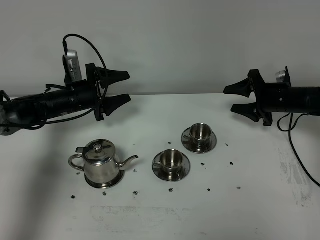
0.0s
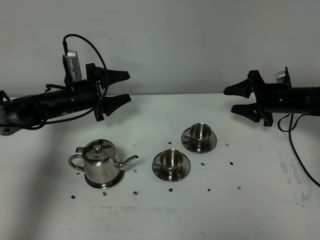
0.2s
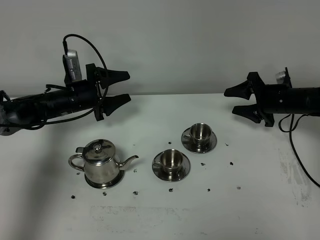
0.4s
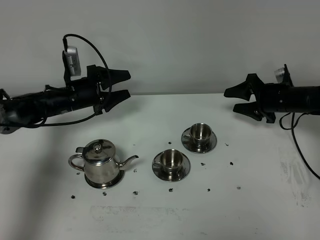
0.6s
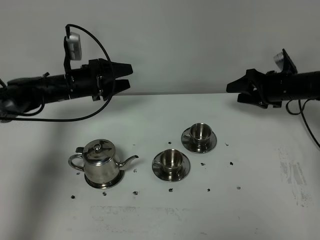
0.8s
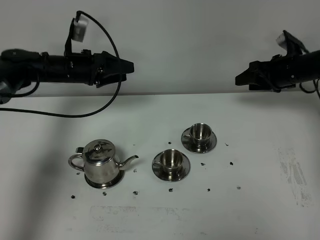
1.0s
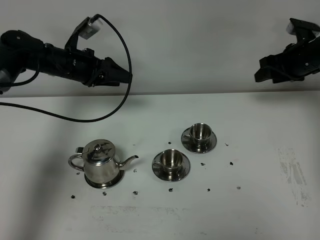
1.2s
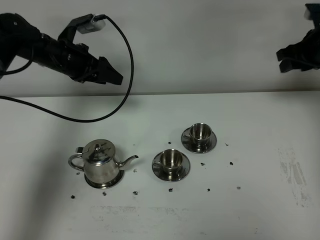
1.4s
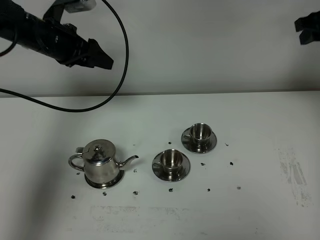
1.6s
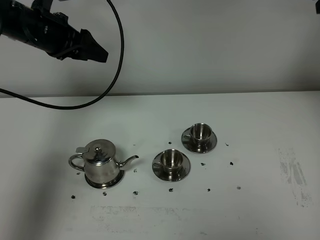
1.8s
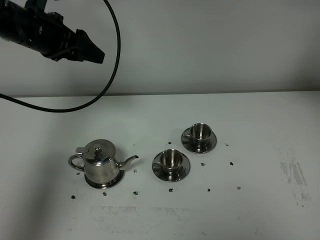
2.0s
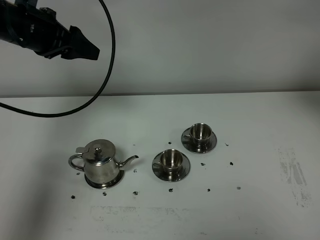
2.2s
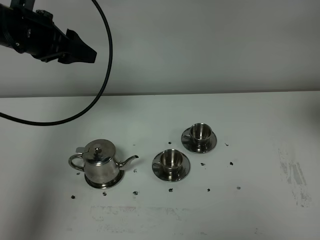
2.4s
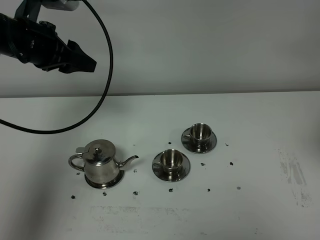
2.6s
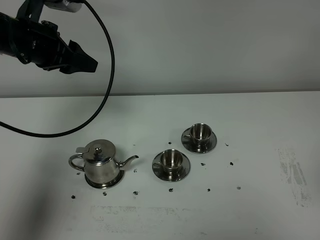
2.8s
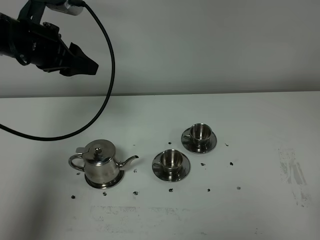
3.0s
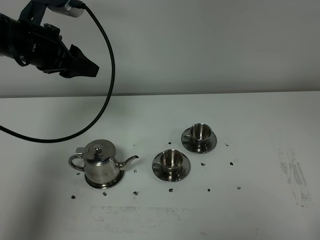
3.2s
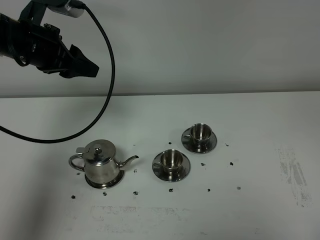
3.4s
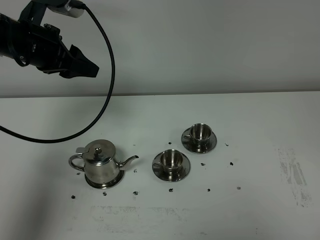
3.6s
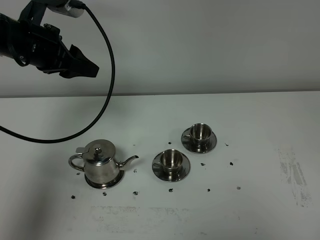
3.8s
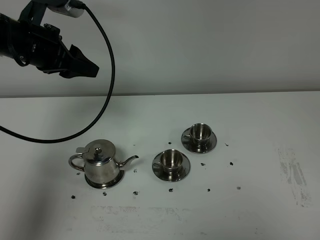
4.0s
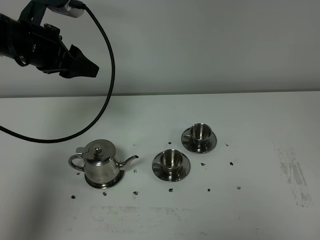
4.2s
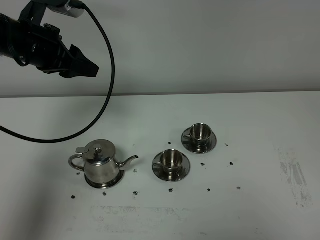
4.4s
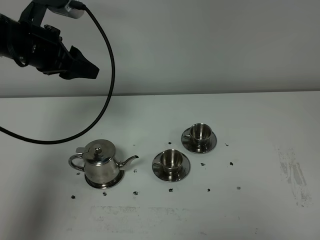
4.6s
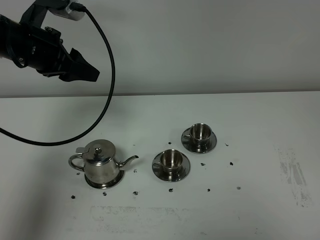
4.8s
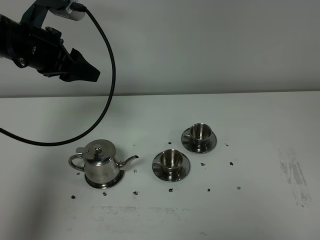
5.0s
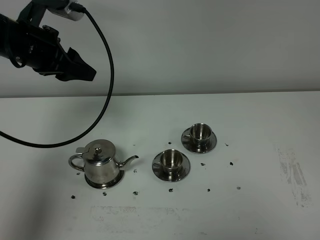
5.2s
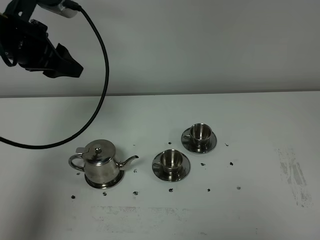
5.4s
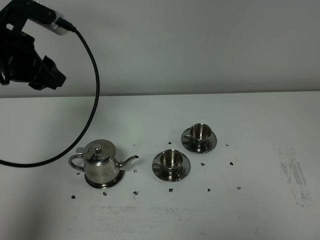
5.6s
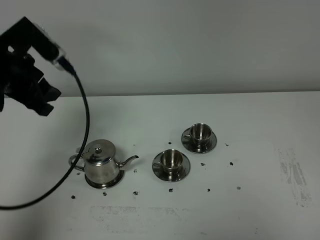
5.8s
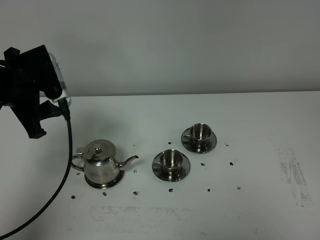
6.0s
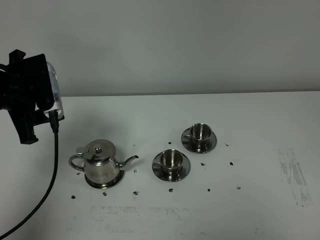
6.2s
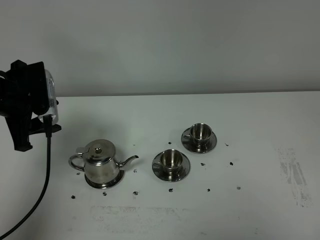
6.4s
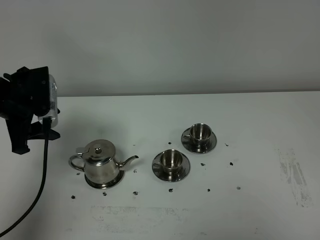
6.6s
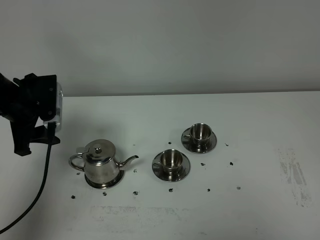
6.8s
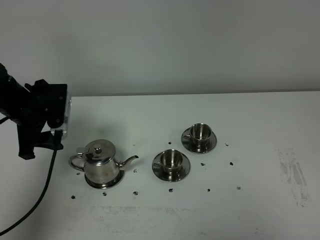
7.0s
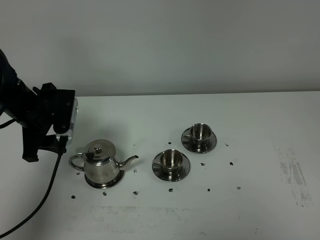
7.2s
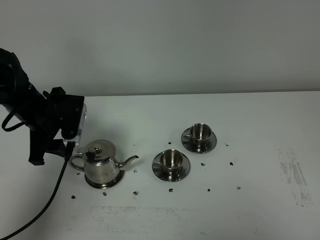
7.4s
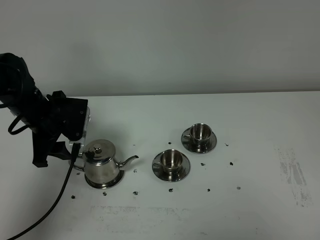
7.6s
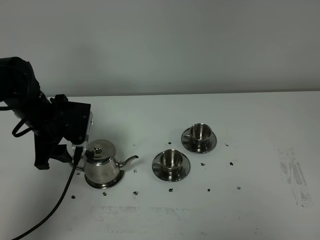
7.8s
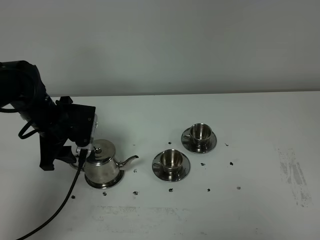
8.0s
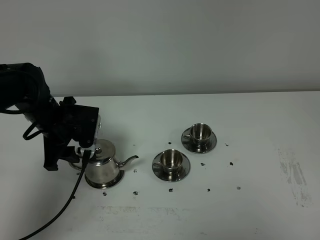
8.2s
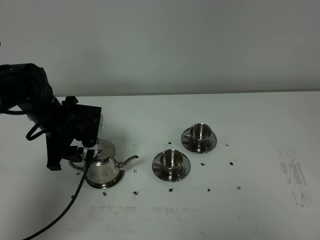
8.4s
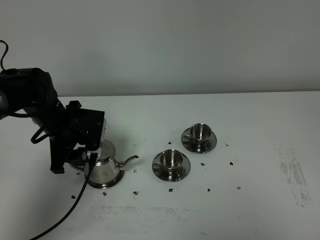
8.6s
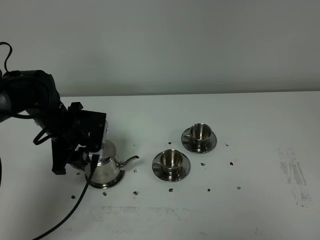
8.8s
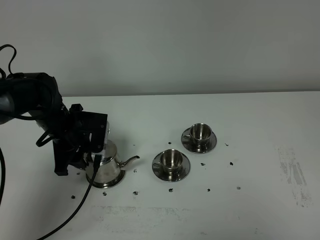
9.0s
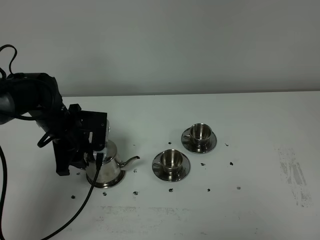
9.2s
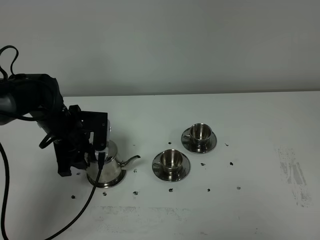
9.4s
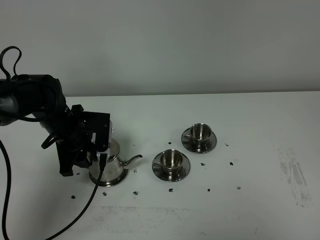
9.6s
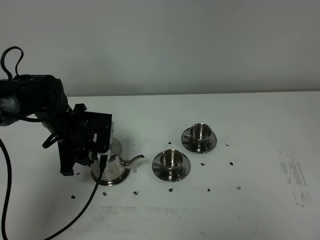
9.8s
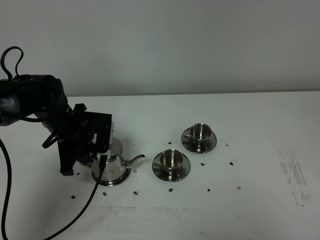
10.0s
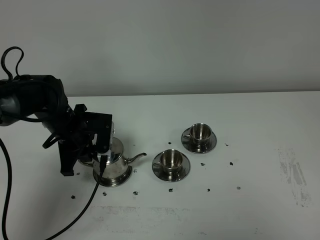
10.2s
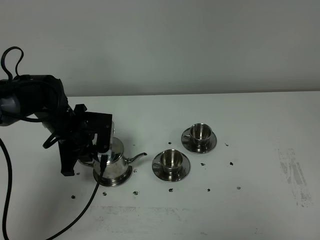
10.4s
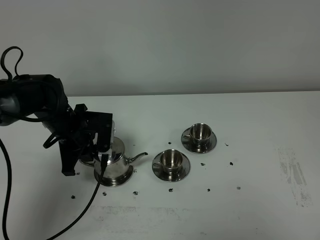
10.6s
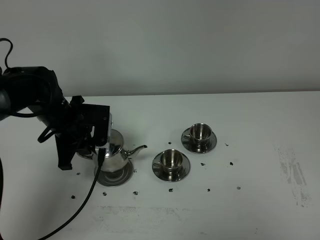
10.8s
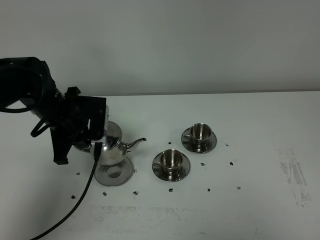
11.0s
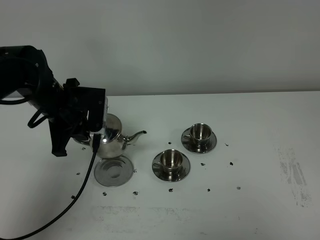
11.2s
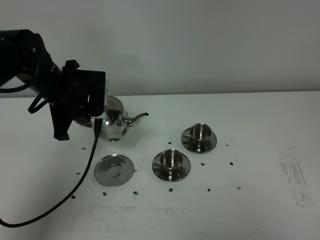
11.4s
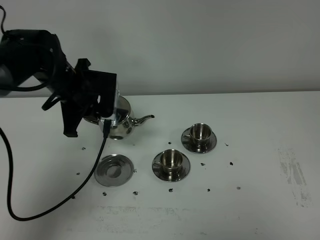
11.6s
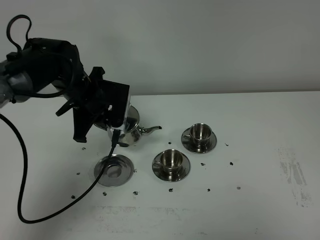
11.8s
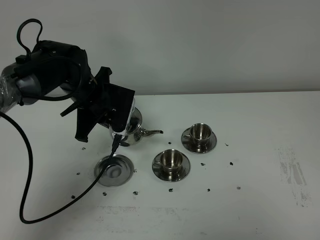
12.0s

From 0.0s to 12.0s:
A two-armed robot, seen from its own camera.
Task of the whole recording: grasp the stainless steel teapot and pour the tea into the two stainless steel teacups one by one, put the stainless steel teapot back in its original place.
Step, from 0.0s to 10.6s: Pick up the teacup with the left gripper.
From 0.0s to 1.6s: The grippers both shift upward by about 20 cm. The right gripper closes up.
From 1.6s to 3.0s: The left gripper heads backward, covering about 5 cm; the right gripper travels backward by roughly 40 cm.
From 4.4s to 6.0s: The left gripper moves backward, about 5 cm.
From 6.0s to 7.6s: The left gripper is displaced downward by about 10 cm.
From 7.6s to 9.0s: The left gripper moves roughly 5 cm.
From 9.0s to 10.4s: The left gripper closes up.
From 10.4s to 12.0s: The left gripper moves upward, approximately 5 cm.

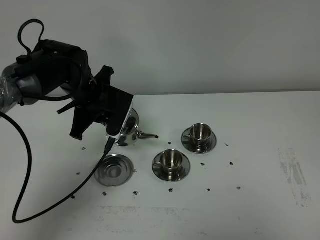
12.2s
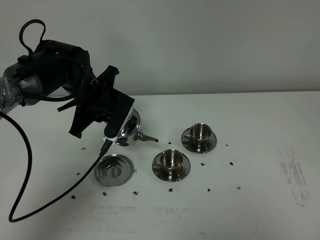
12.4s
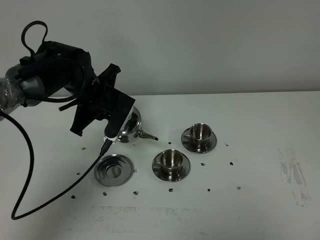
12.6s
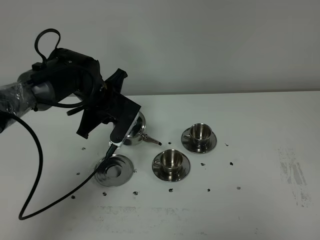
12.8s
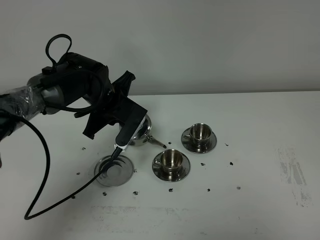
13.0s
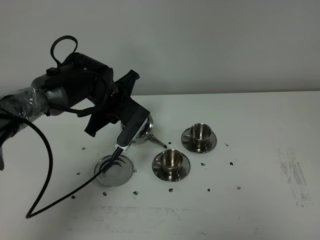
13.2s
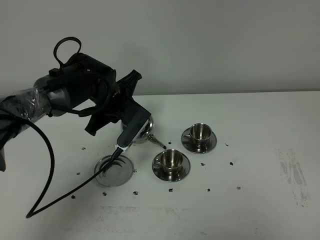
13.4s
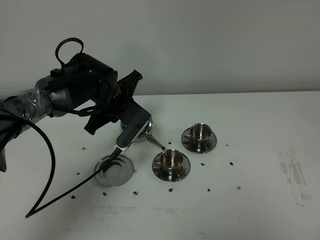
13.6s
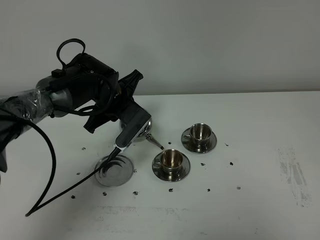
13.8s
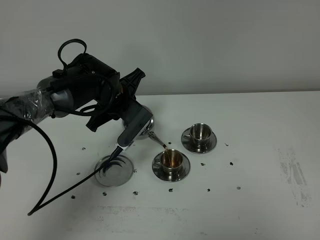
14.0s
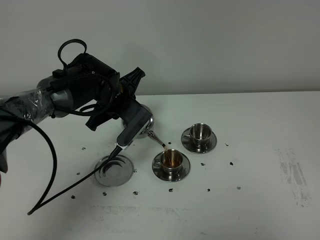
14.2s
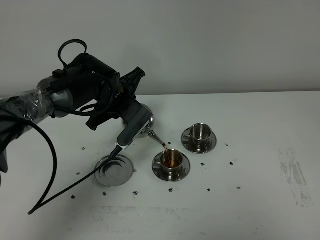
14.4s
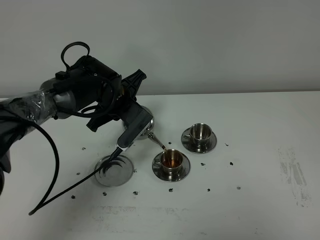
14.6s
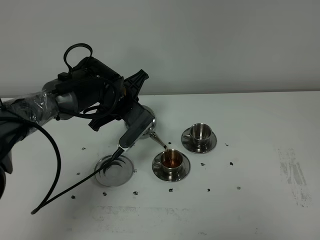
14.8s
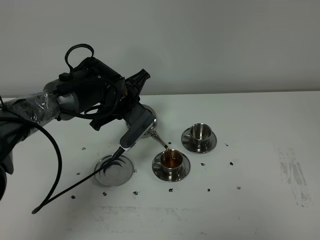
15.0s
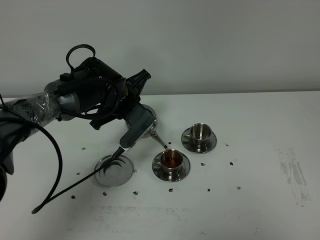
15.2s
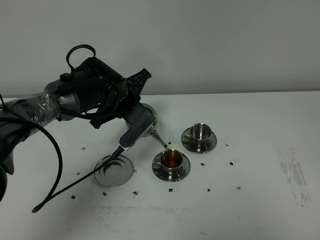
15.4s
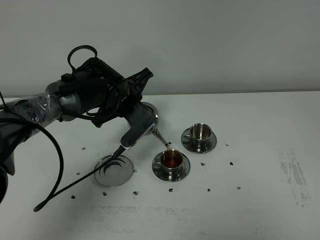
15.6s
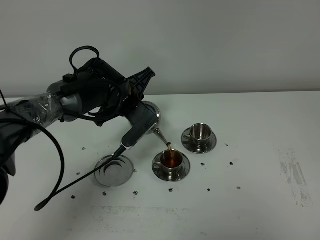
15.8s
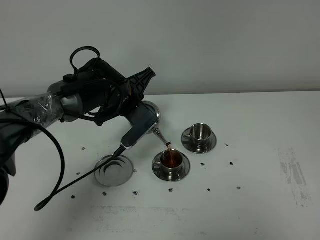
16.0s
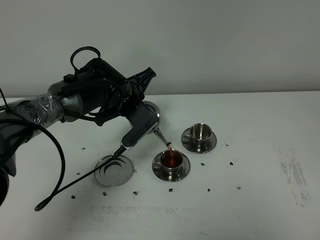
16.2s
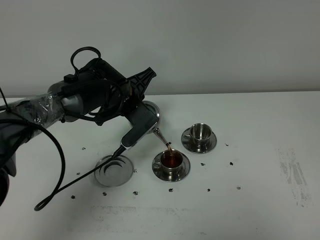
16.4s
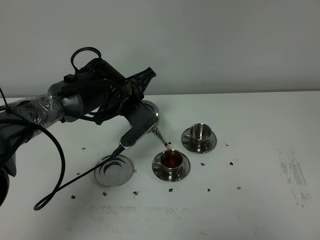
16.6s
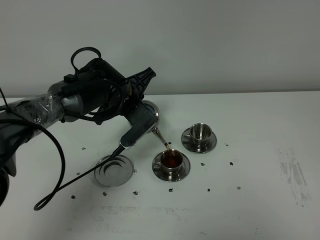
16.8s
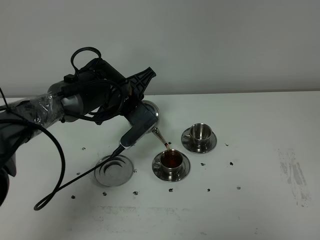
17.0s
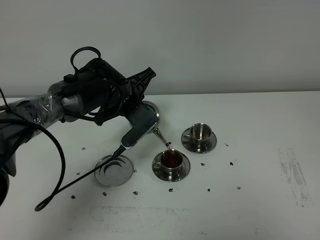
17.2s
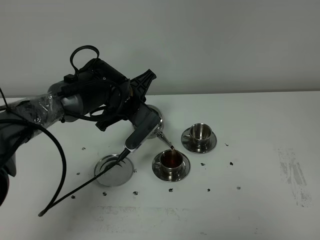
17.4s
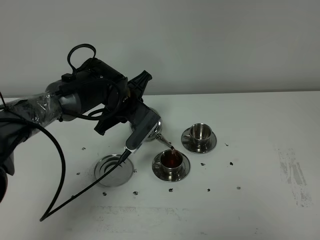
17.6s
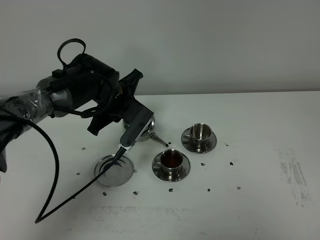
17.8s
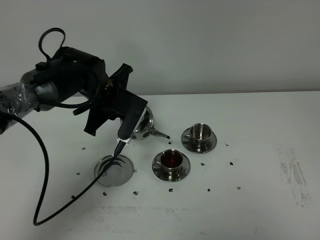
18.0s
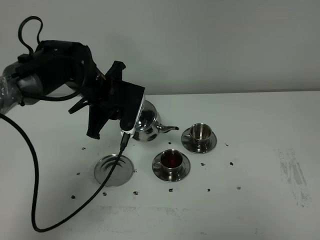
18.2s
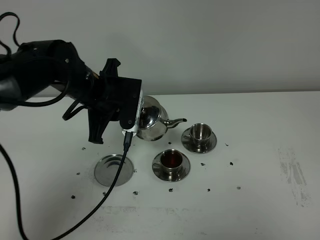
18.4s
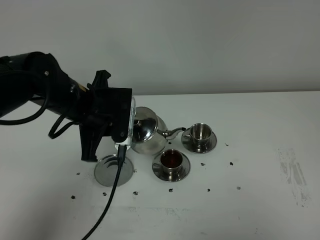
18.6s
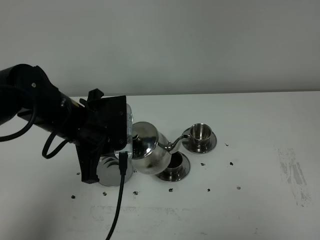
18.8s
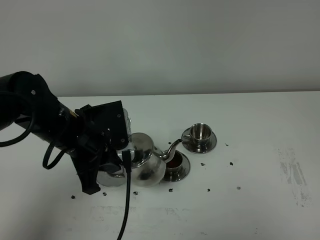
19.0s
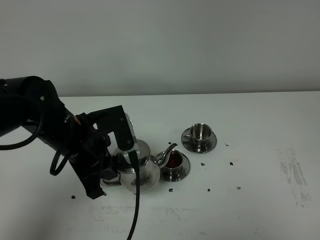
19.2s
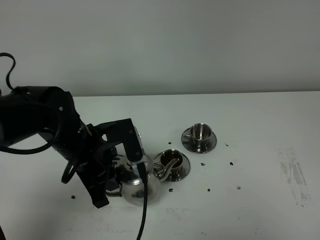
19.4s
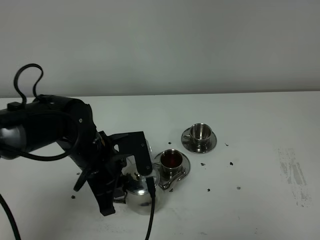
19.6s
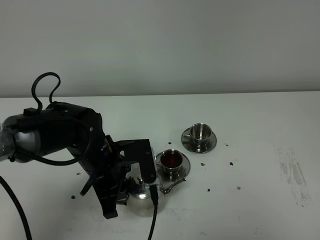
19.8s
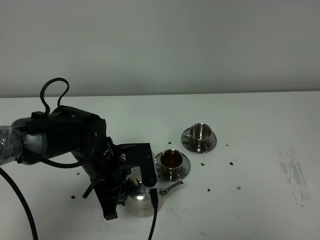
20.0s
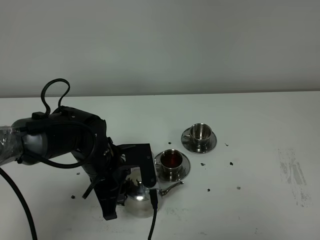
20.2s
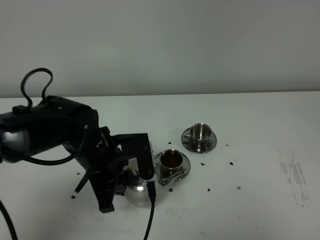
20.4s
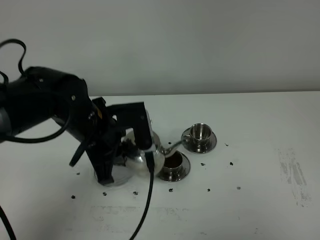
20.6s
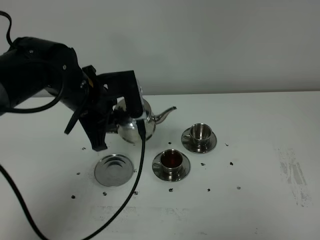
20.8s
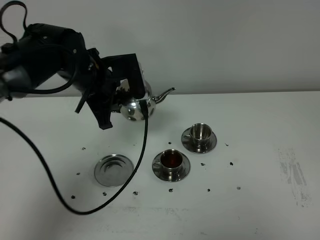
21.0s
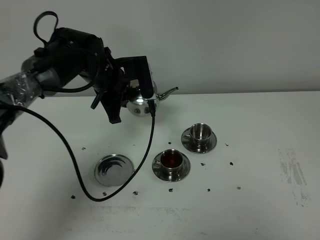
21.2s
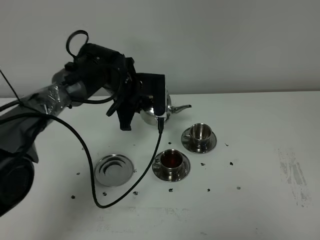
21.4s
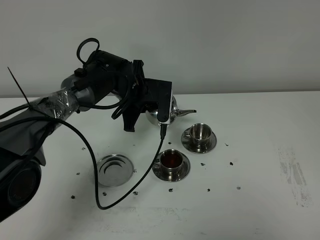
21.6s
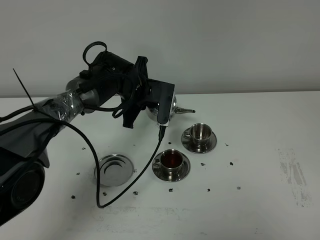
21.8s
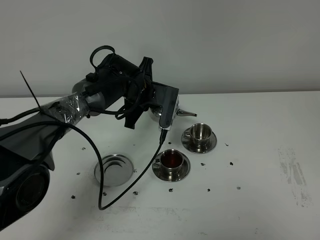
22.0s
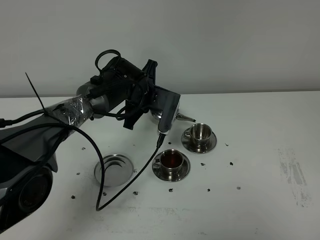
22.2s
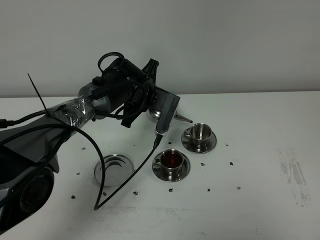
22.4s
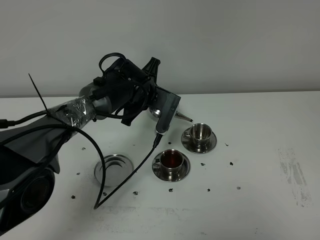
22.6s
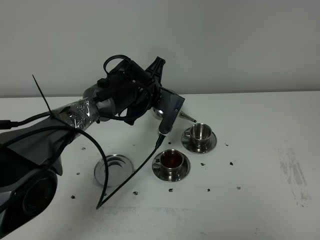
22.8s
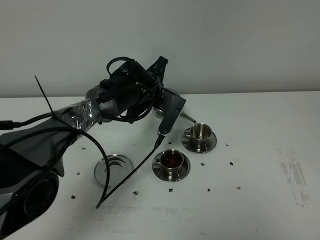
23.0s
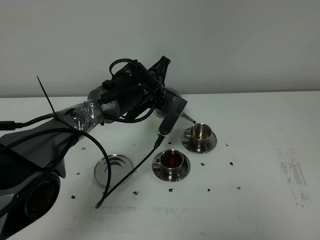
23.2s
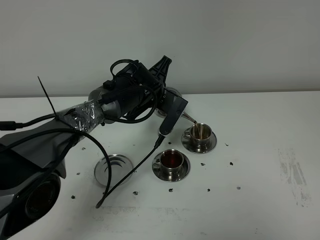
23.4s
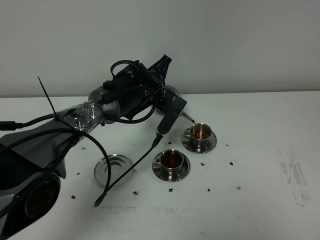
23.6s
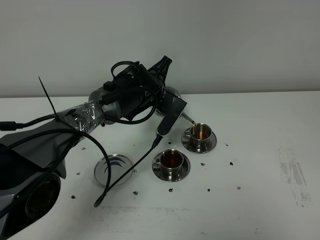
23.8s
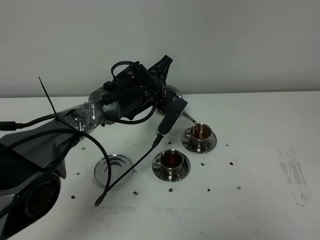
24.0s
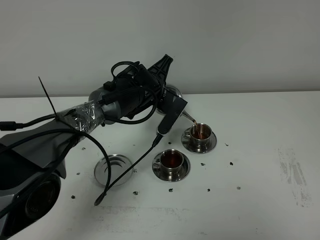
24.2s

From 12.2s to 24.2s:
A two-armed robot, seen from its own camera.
Task of the whole recording: grasp the stainless steel teapot and pour the tea into the two stainless steel teacups one by one, put the stainless steel teapot back in its original place.
From 13.8s to 16.6s: The grippers make only small movements.
From 16.6s to 18.2s: The left gripper changes place by approximately 5 cm.
From 18.2s to 19.8s: The left gripper goes approximately 15 cm backward and downward.
From 19.8s to 21.2s: The left gripper shifts roughly 15 cm forward and upward.
From 21.2s to 22.6s: The left gripper travels to the right by roughly 5 cm.
From 22.6s to 24.2s: The grippers move only a little.
